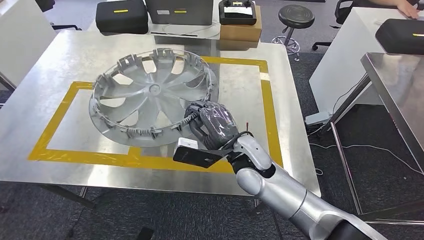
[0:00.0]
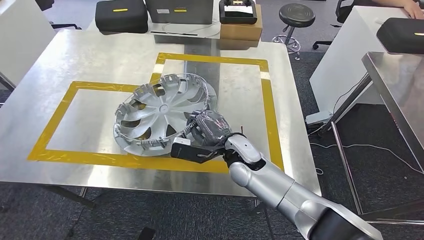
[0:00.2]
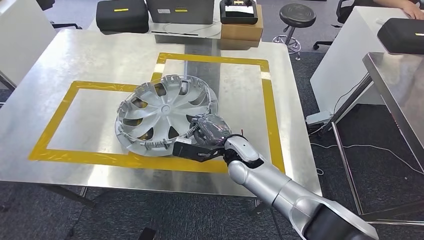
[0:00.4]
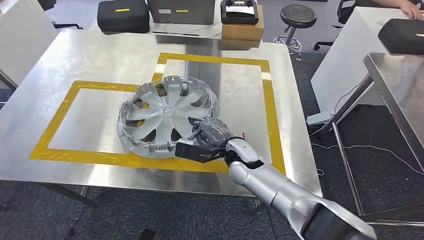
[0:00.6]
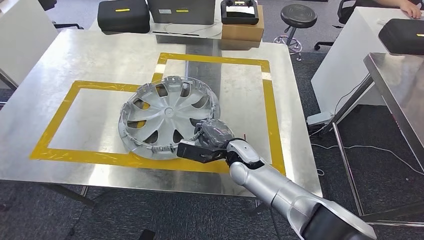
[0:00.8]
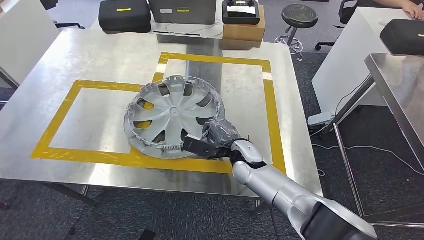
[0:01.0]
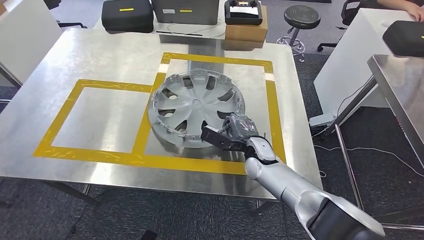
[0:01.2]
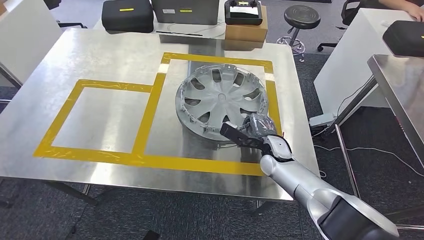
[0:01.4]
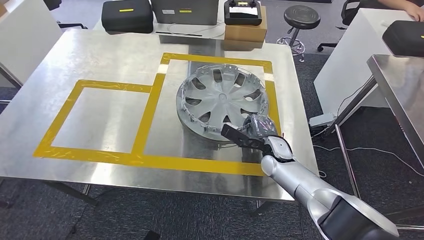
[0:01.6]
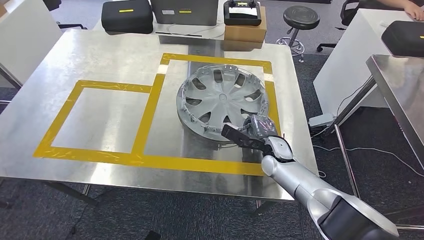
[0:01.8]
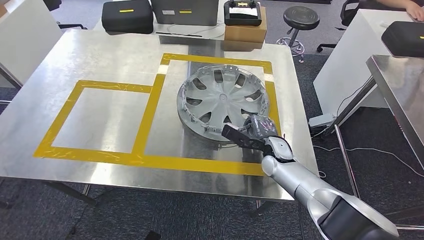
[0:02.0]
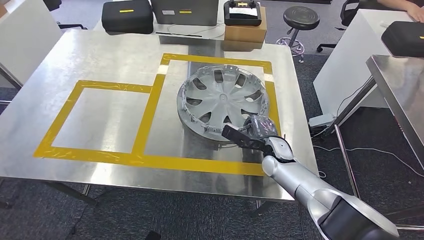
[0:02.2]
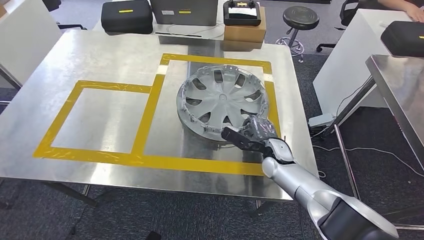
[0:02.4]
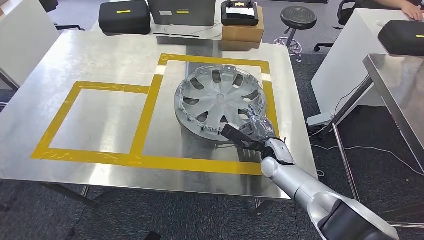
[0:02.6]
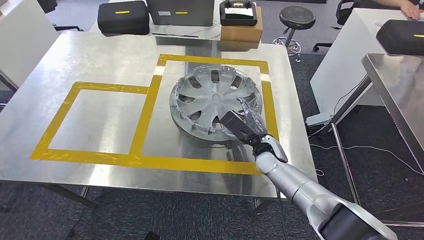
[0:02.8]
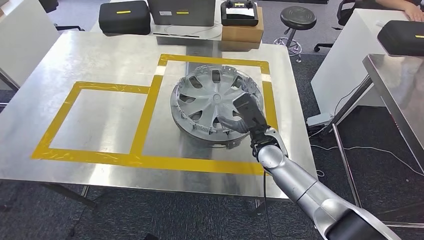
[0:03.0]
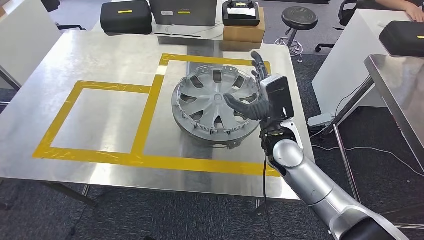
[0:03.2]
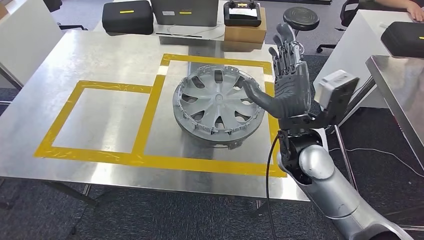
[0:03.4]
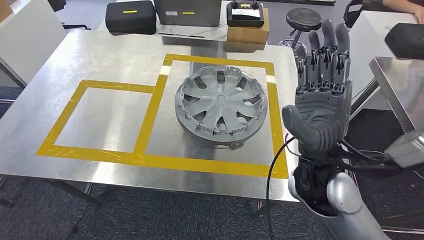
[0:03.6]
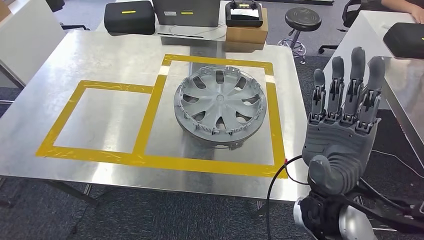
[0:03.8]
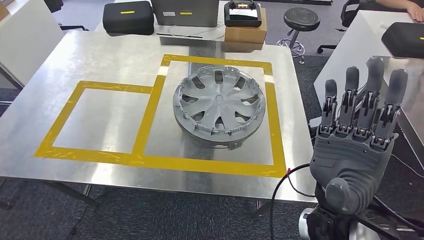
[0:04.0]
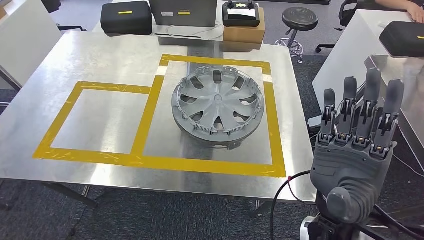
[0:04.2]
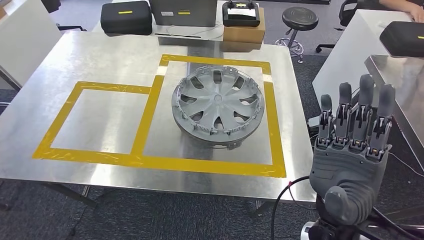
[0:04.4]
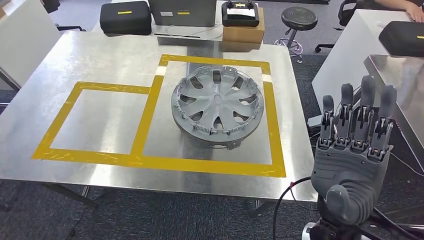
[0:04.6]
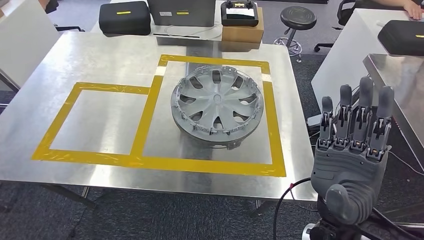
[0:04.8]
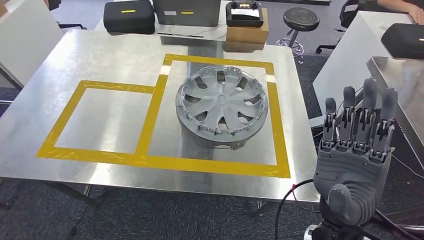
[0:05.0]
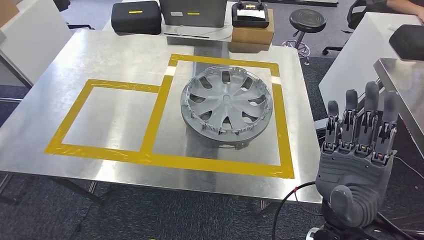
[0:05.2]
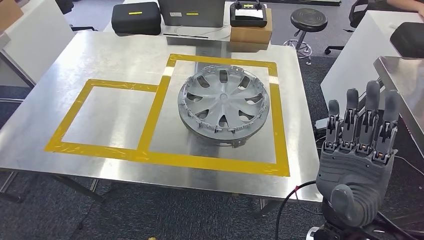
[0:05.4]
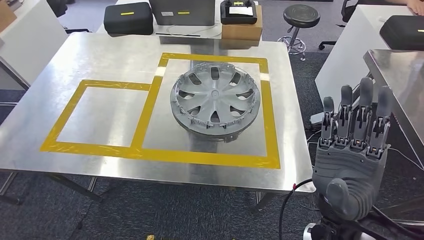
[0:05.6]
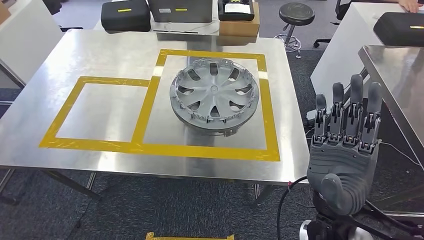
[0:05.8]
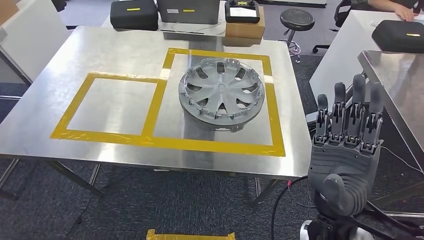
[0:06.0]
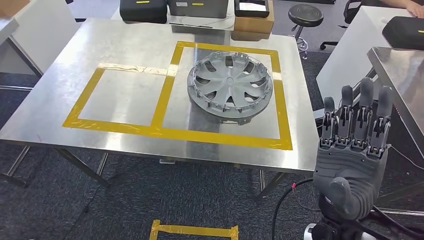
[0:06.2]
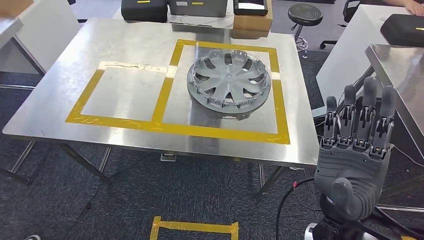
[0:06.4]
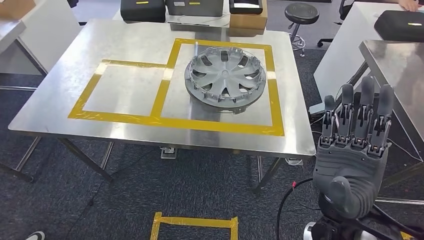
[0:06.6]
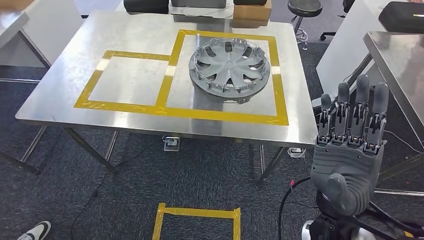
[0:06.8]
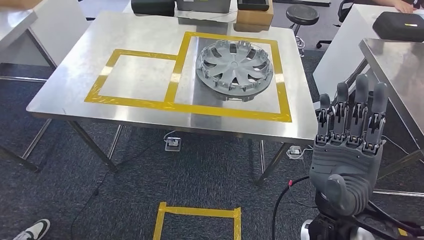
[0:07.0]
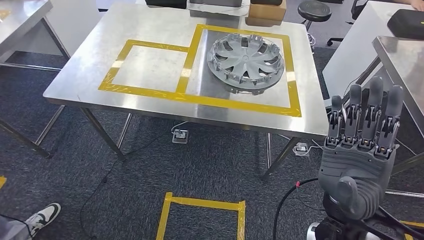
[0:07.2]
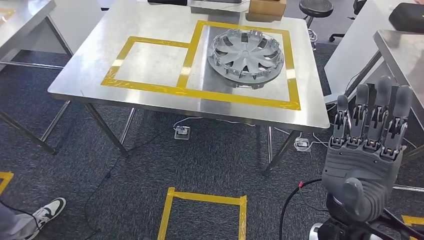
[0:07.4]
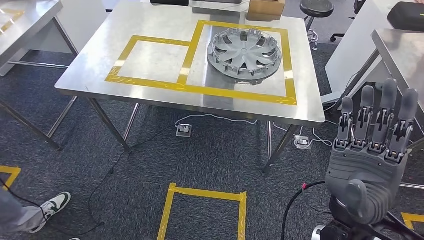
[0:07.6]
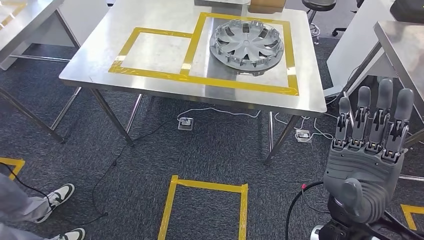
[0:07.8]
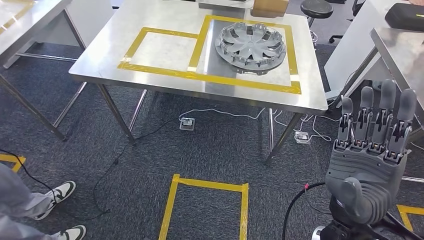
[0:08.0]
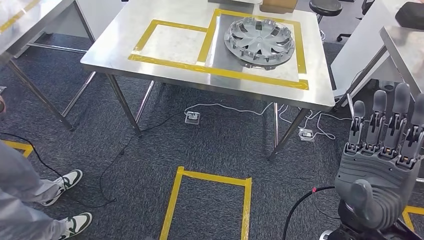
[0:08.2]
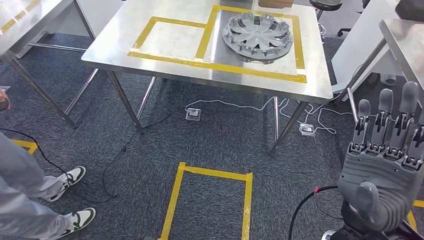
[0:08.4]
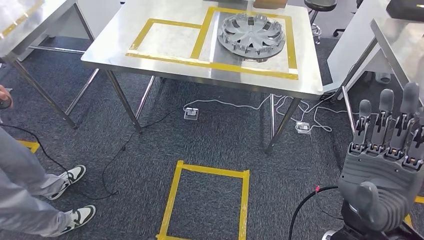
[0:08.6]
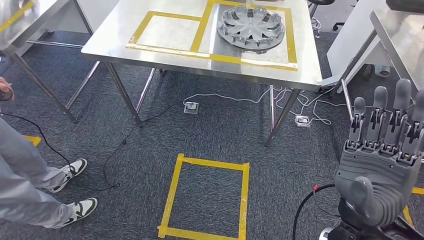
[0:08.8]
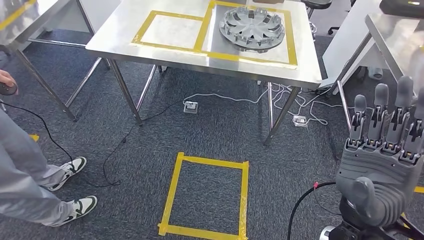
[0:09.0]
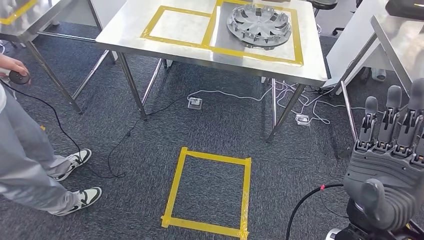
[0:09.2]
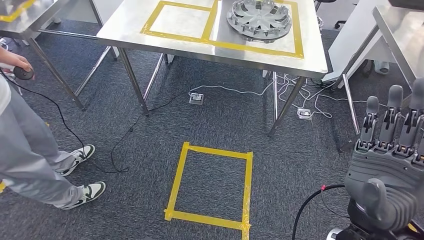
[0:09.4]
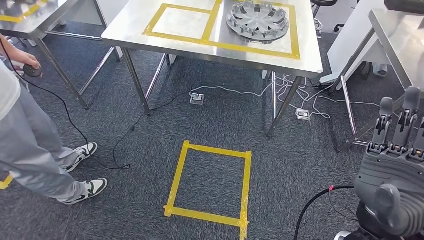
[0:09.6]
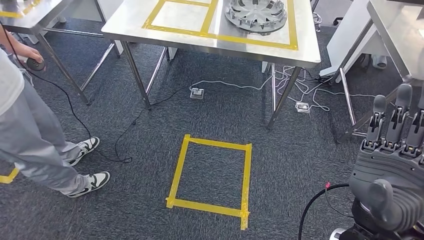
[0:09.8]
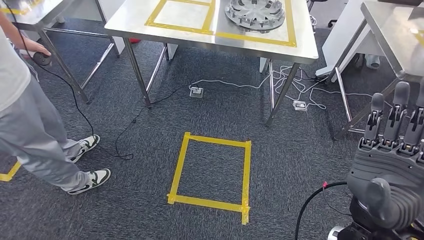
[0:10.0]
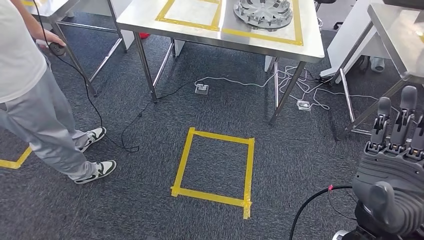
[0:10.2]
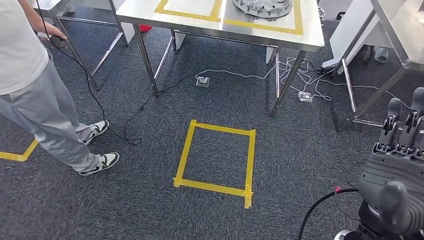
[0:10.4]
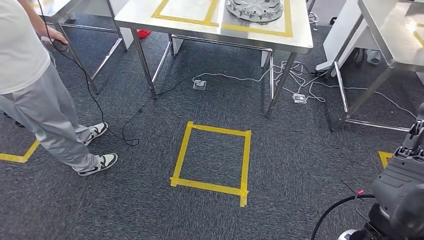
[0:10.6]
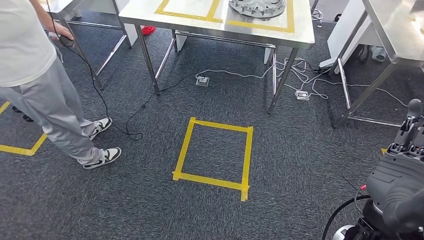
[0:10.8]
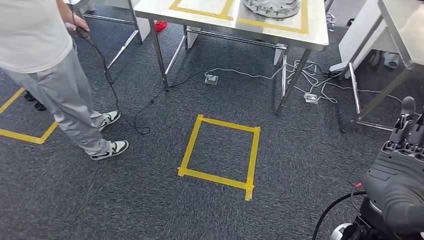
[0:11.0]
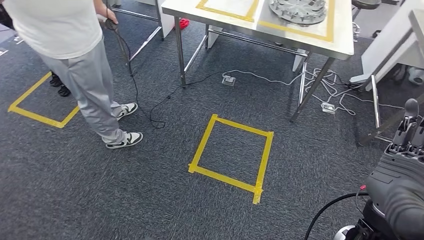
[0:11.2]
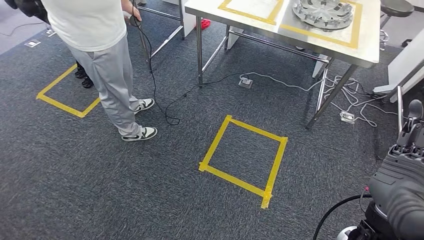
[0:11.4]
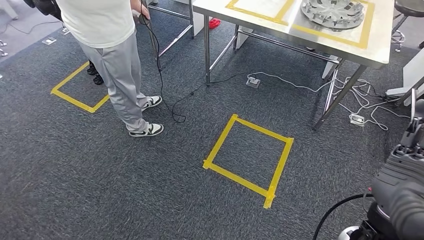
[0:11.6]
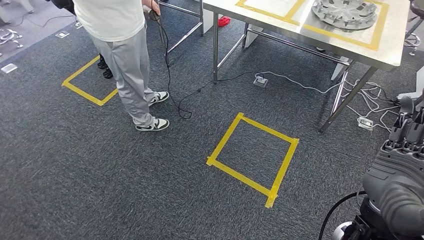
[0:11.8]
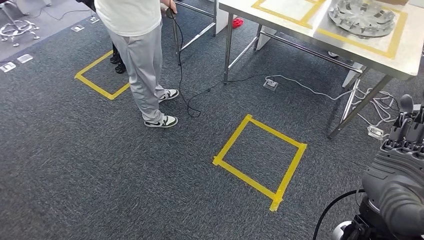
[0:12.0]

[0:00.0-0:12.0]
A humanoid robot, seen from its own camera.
Step, 0:00.0 to 0:04.4: Insert the small parts into the corresponding holes on the workbench.
0:01.6 to 0:03.0: The right hand shifts some 5 cm upward.
0:03.0 to 0:04.4: The right hand goes about 25 cm backward and upward.

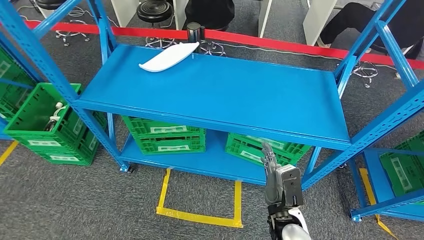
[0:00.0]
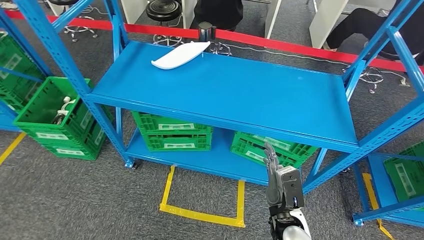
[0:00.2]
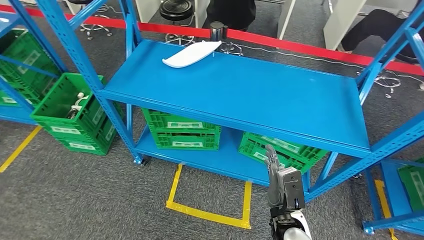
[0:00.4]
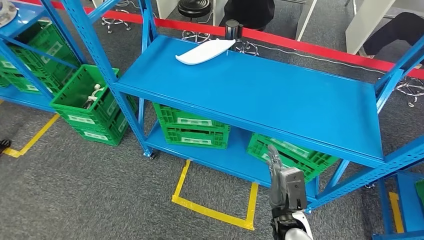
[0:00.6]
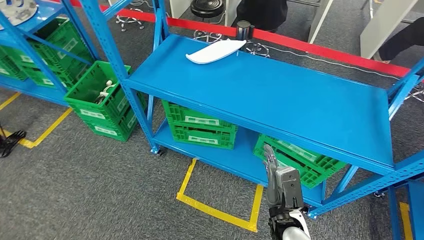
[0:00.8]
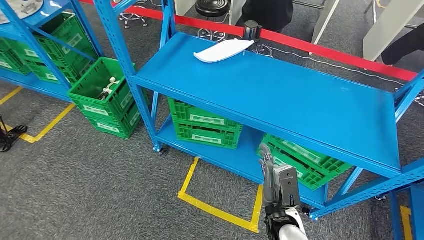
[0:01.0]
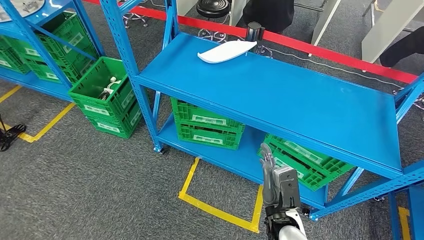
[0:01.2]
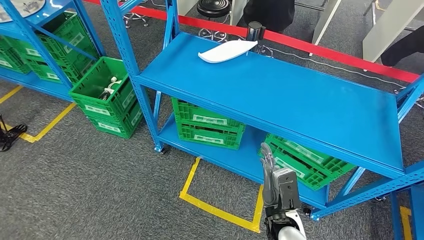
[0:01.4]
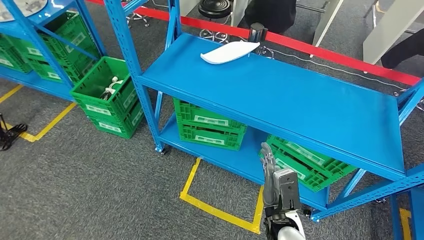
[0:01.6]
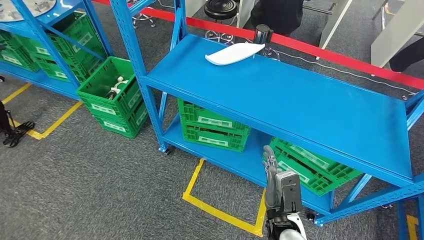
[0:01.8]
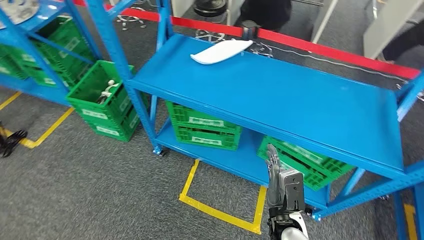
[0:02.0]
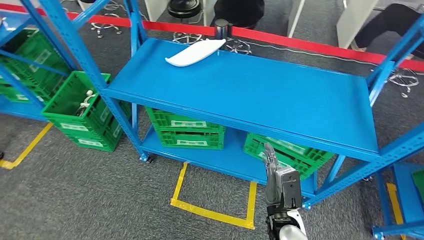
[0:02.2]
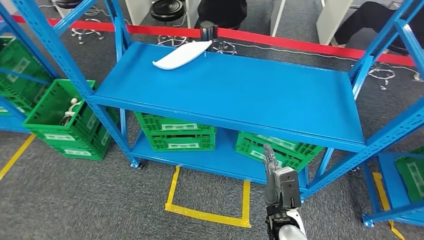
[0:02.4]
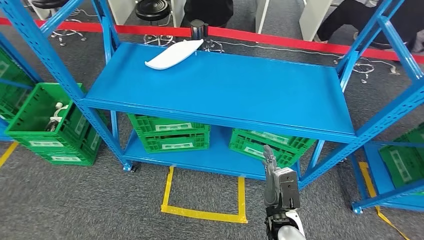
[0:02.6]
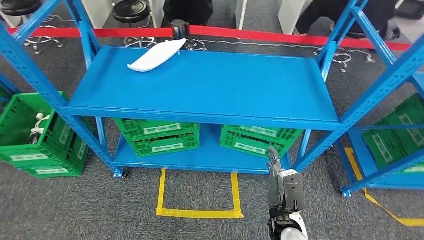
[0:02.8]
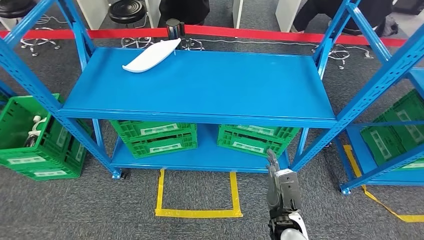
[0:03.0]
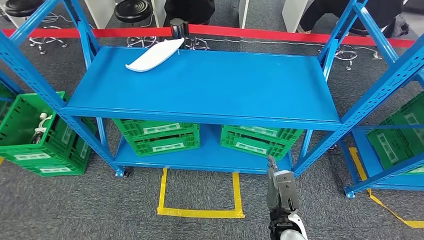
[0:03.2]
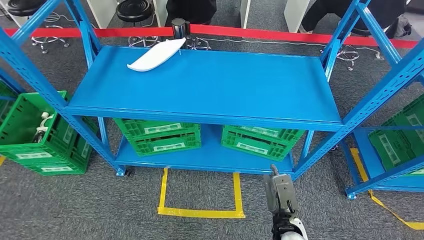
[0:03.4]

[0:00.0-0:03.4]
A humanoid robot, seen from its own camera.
Step, 0:00.0 to 0:03.2: Move to the initial position at the workbench.
